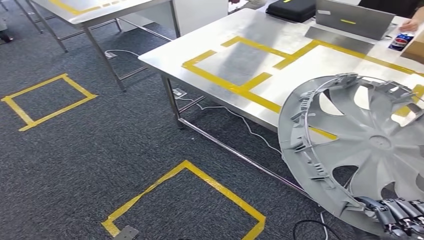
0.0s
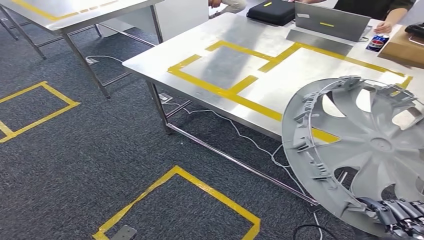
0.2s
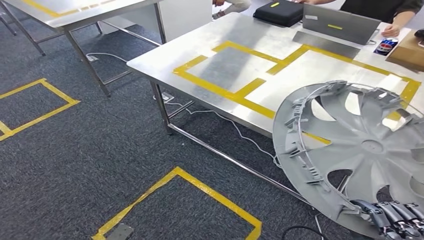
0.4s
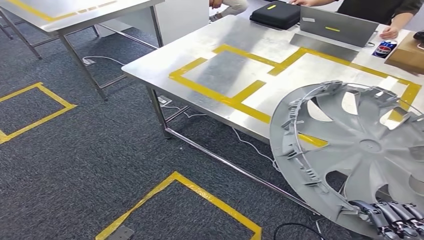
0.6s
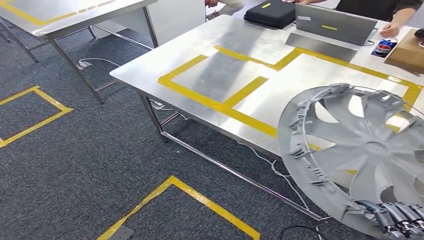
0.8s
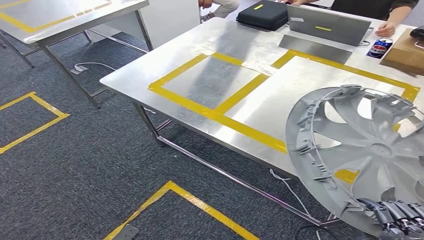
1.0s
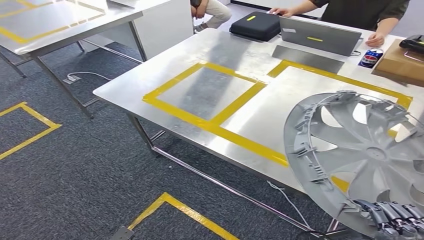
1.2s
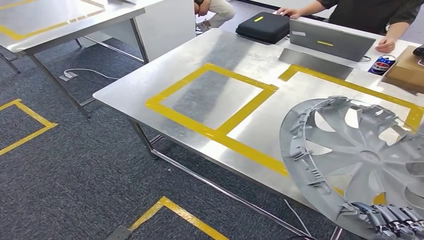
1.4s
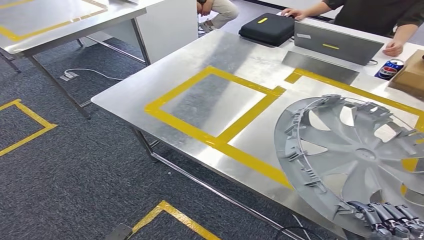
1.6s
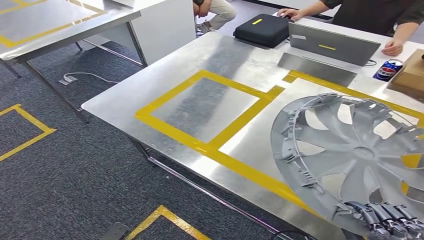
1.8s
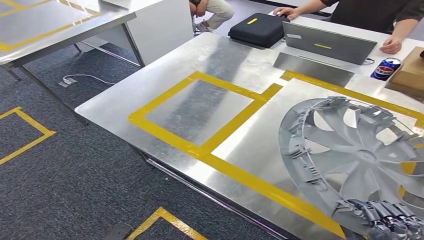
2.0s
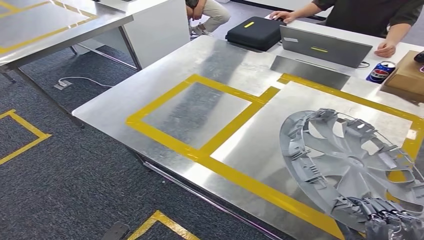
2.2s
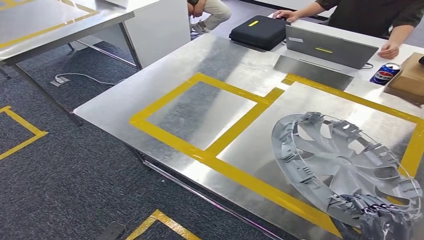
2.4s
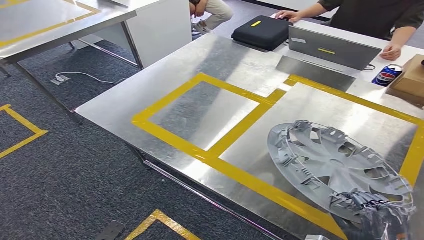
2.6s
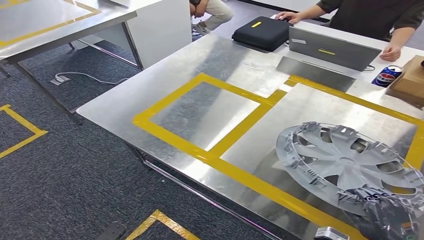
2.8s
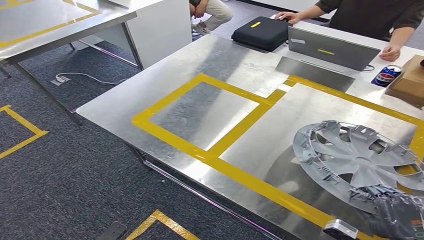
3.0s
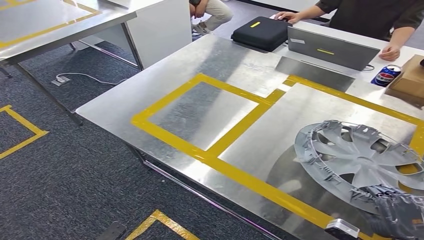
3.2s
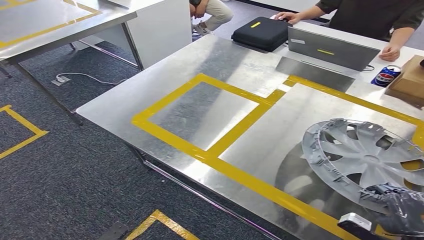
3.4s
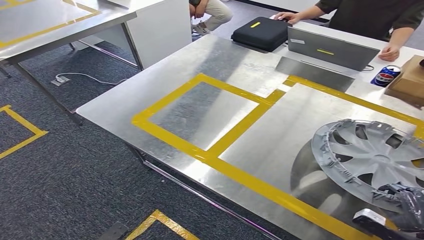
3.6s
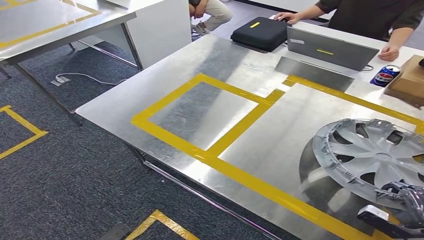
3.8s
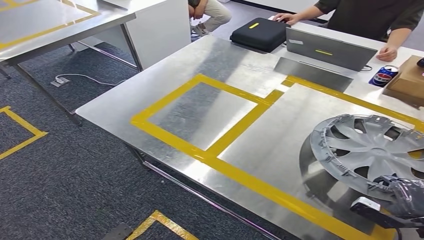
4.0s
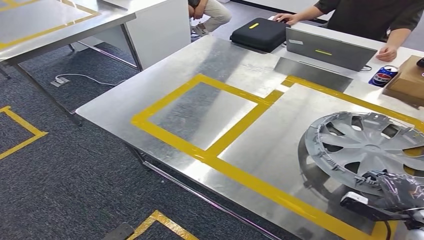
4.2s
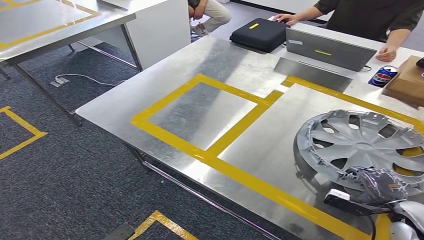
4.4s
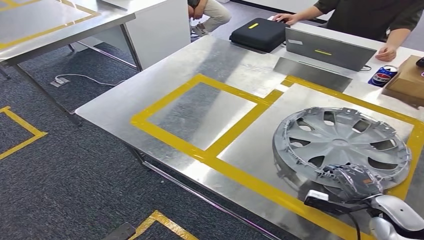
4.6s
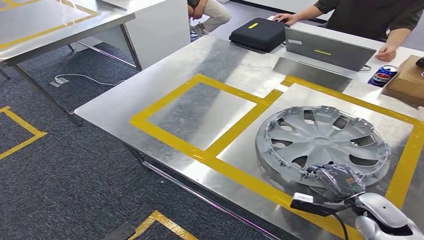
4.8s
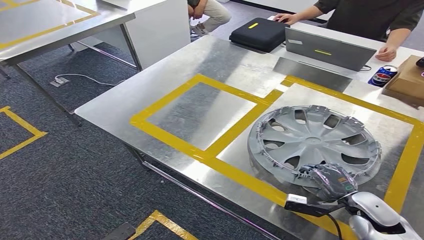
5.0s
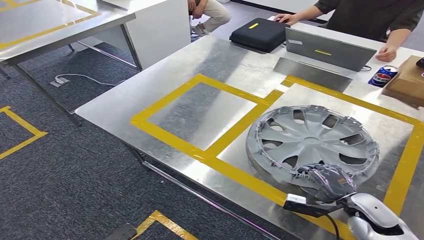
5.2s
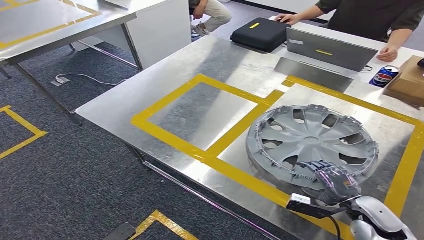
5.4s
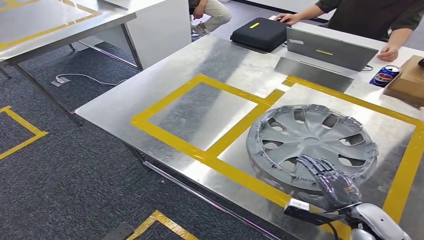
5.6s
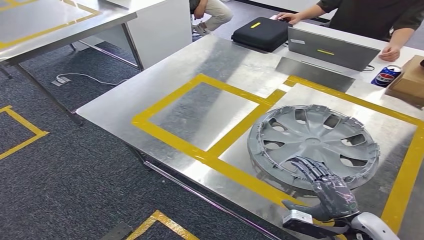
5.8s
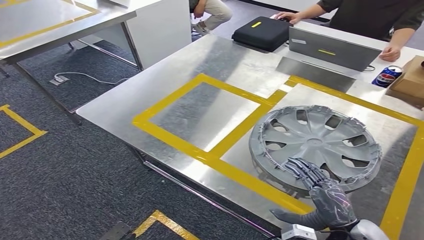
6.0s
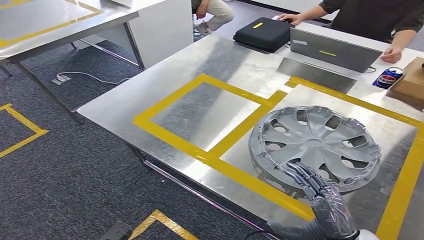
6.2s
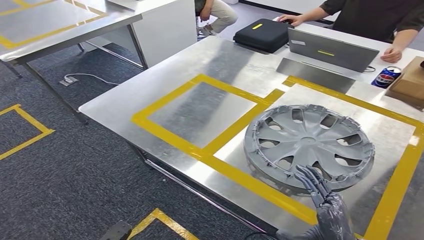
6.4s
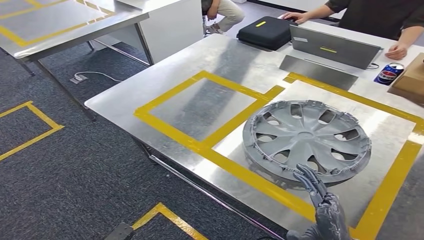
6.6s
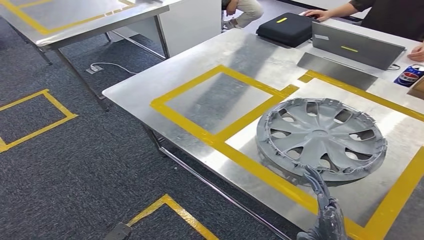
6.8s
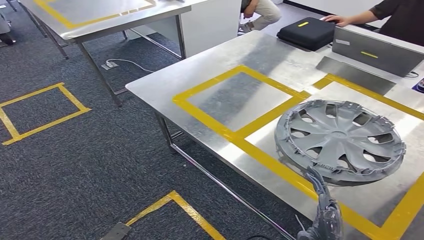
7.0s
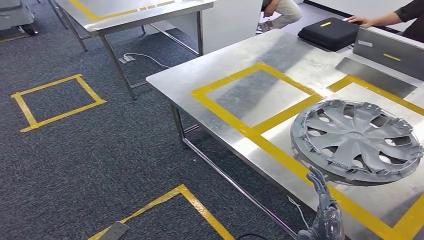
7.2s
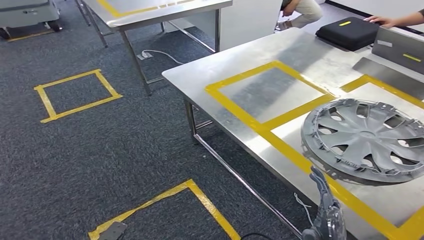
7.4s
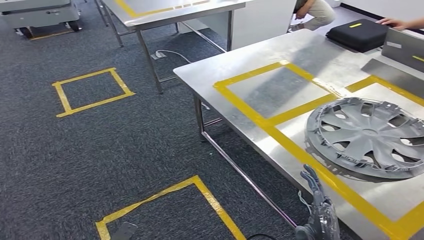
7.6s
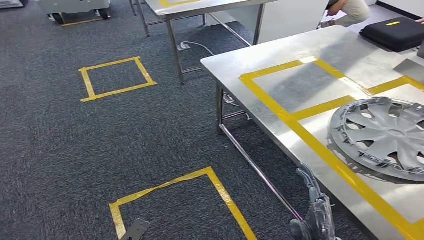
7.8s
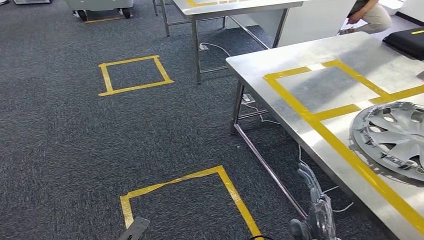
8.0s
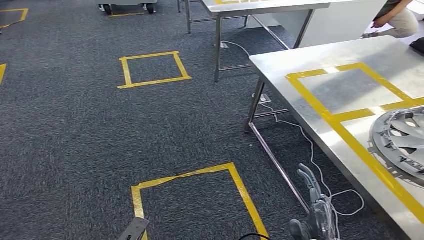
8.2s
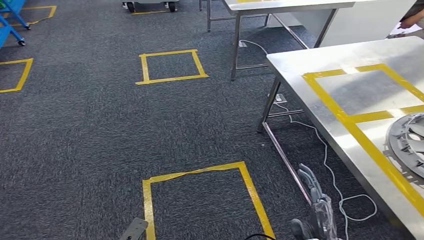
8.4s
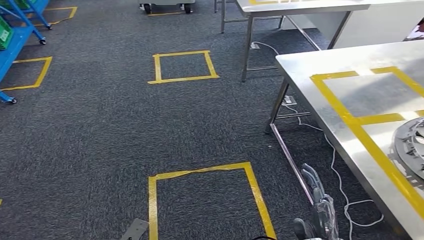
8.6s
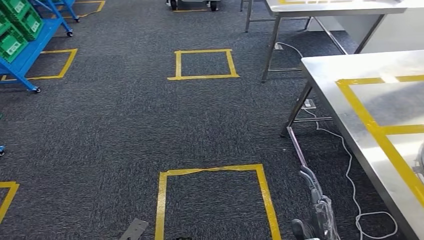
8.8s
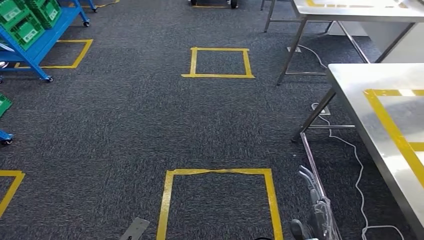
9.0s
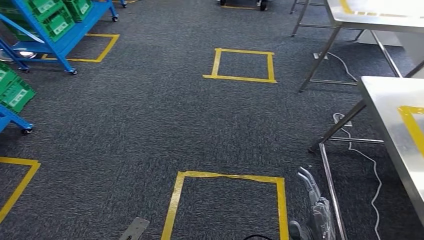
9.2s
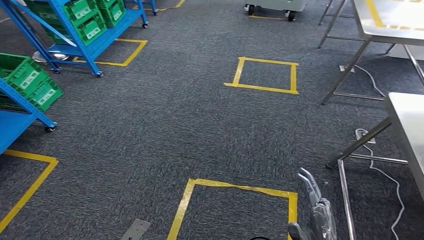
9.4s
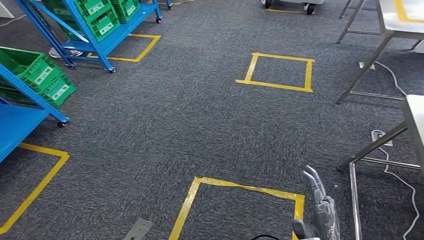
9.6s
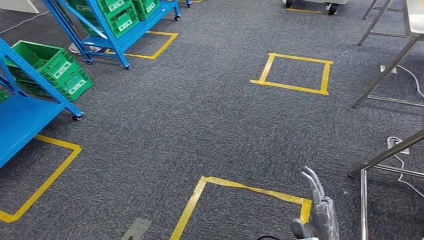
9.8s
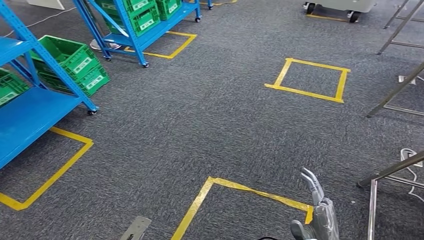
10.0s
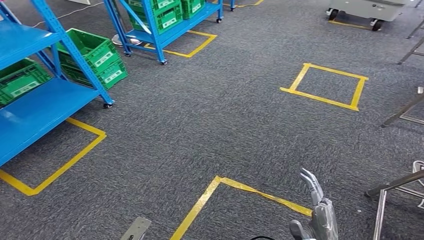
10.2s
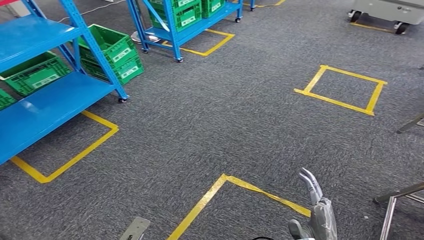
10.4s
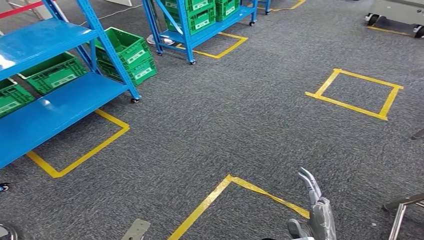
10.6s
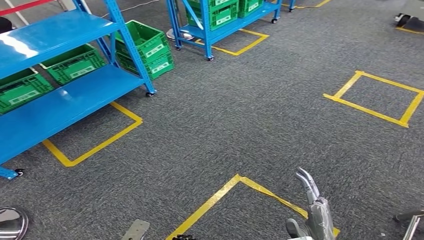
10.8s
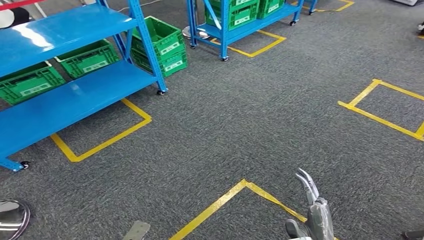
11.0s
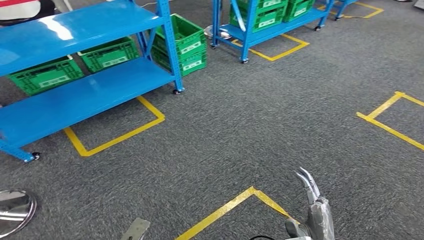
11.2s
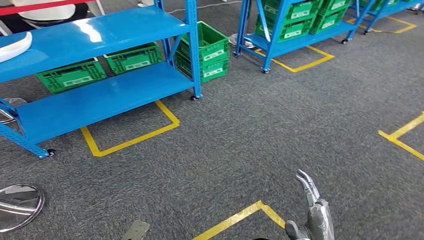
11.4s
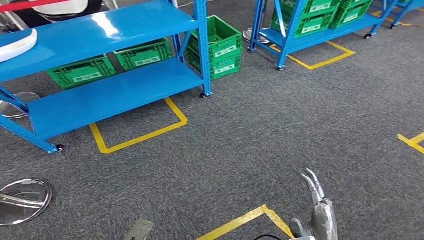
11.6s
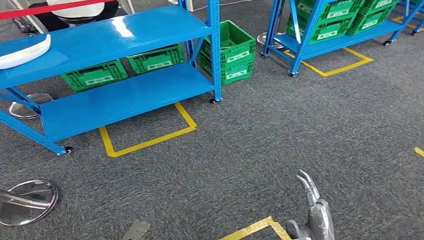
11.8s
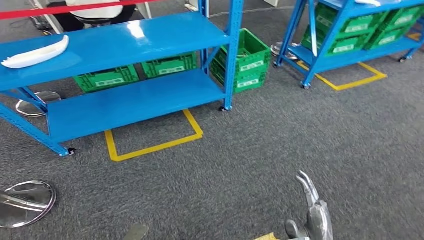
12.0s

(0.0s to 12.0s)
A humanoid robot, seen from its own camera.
Step, 0.0s - 8.6s: Insert the small parts into the corresponding slots on the workbench.
3.0s - 4.4s: The right hand travels forward by about 10 cm.

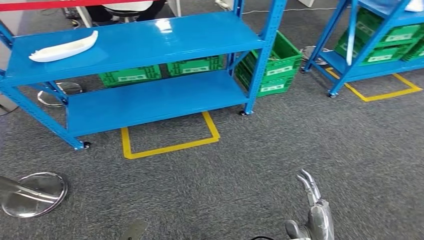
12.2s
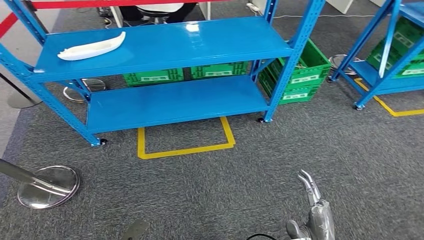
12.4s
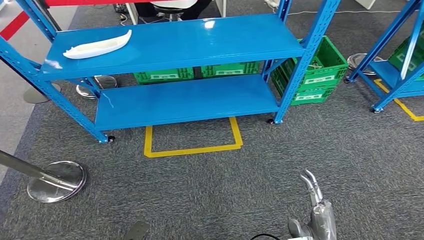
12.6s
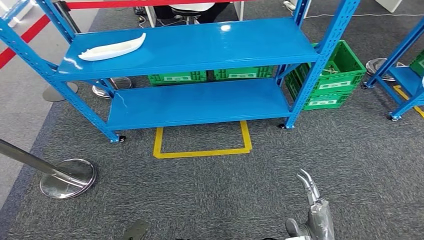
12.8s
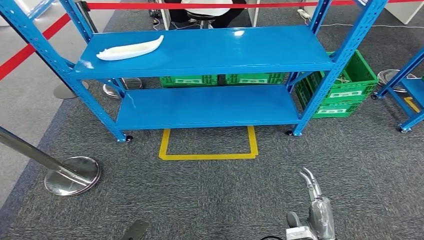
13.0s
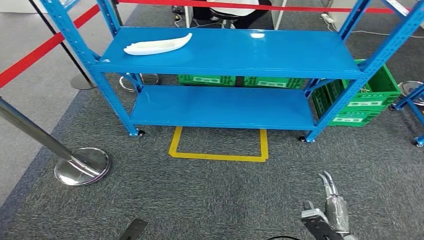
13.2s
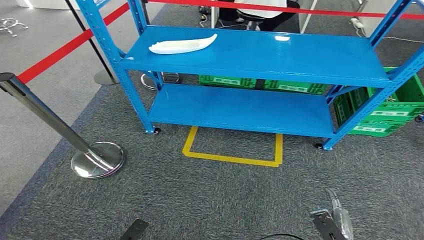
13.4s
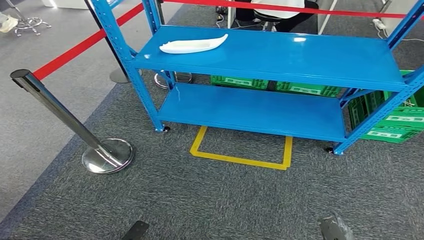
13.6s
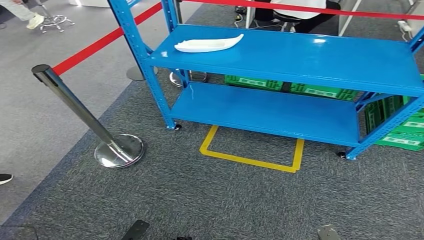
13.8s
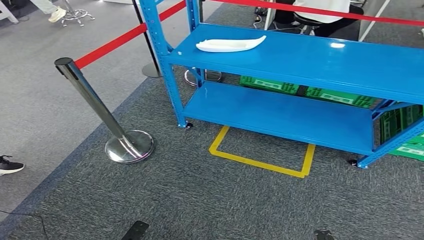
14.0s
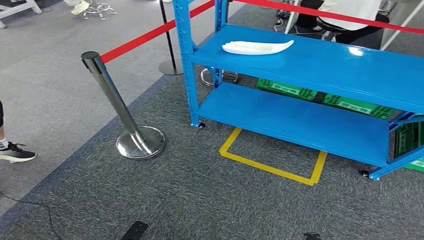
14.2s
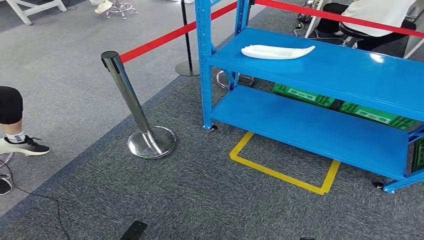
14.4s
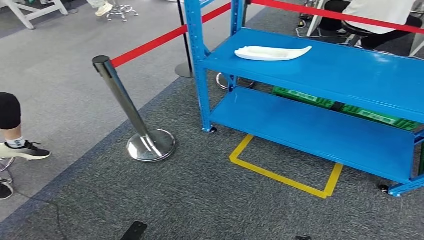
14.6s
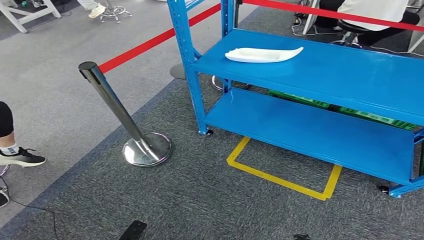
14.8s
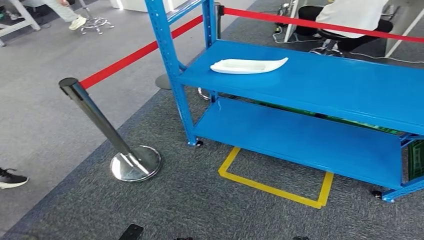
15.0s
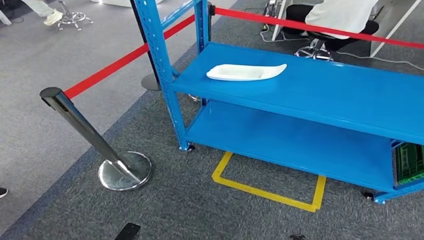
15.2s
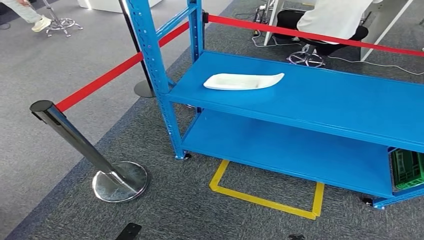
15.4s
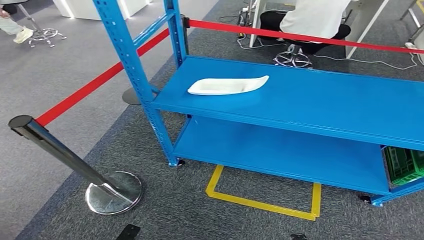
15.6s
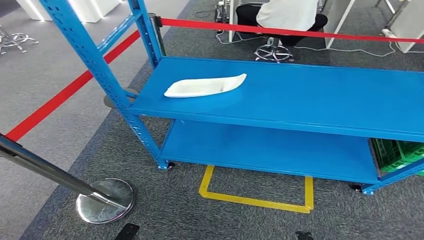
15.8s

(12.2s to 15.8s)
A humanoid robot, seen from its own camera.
Step, 12.2s - 15.8s: Return to the initial position at the workbench.
